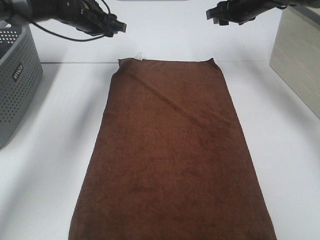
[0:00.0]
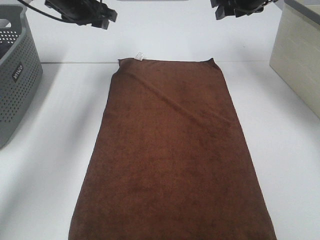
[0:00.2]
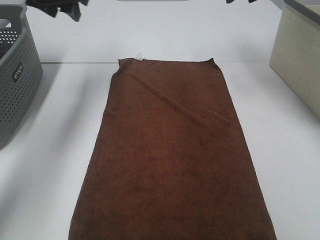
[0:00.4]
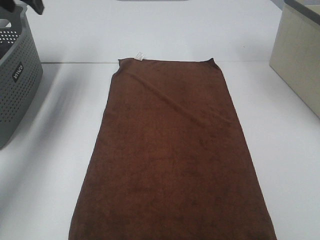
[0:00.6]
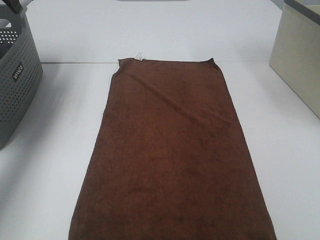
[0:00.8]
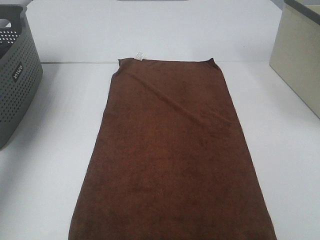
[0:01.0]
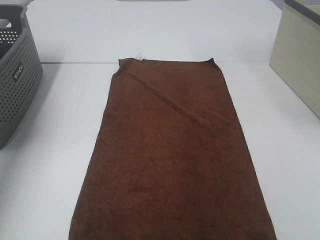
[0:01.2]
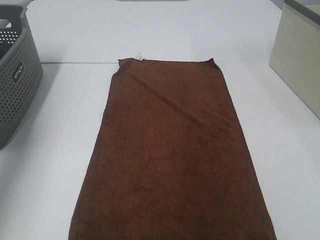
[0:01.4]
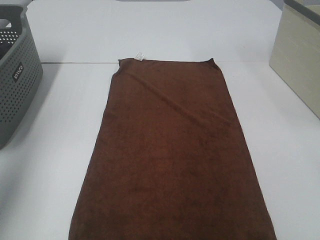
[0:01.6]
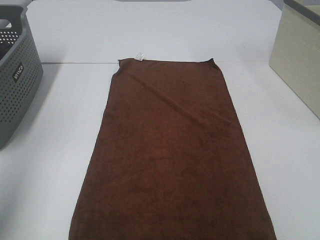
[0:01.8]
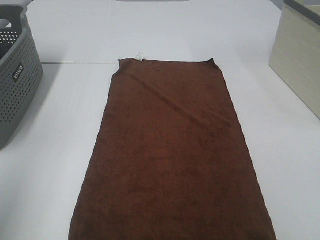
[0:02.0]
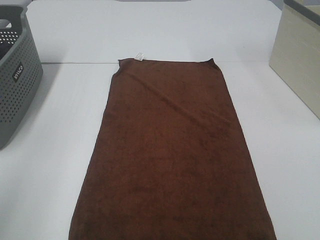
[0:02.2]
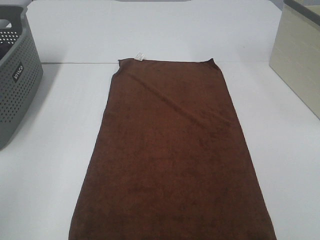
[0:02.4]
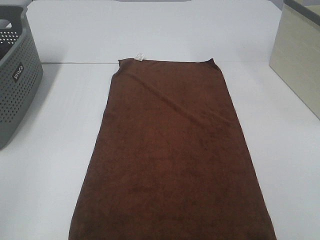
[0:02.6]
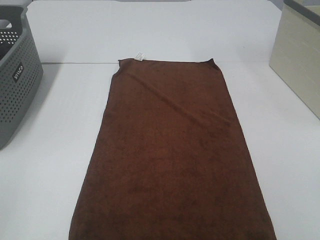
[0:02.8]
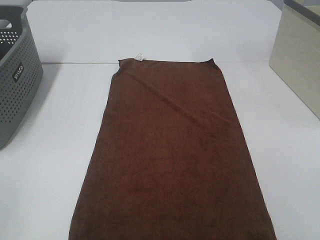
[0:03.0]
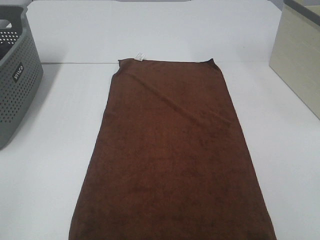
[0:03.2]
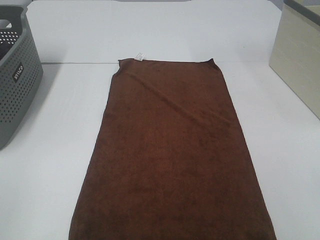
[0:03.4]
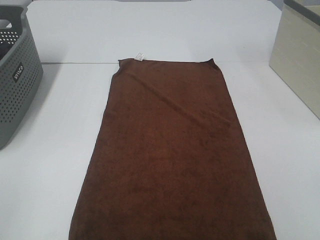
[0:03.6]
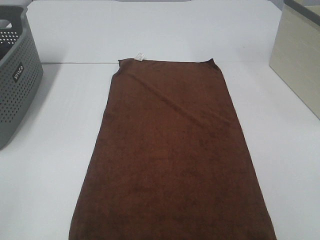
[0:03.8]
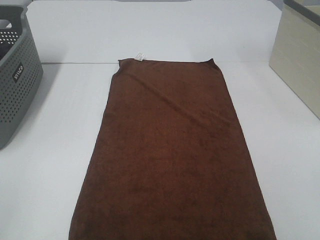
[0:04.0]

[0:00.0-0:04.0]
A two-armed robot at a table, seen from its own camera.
Task of the whole recording: Remove the towel and place it.
0.0 to 1.4 s: The left gripper shifts some 40 cm backward, upward and to the left. The right gripper moves backward and upward, roughly 35 cm.
1.4 to 2.6 s: The left gripper moves backward, about 20 cm.

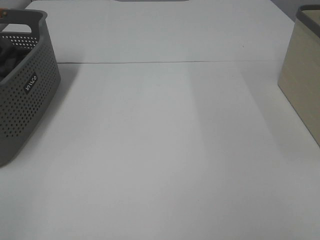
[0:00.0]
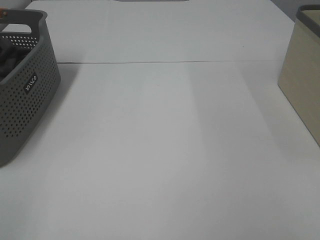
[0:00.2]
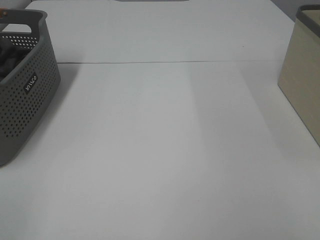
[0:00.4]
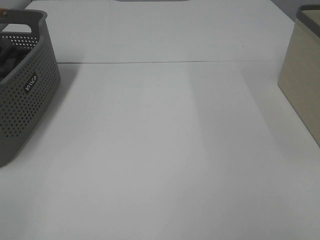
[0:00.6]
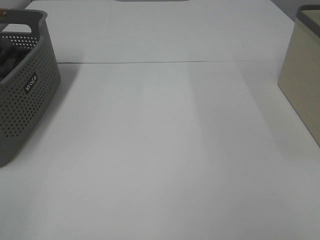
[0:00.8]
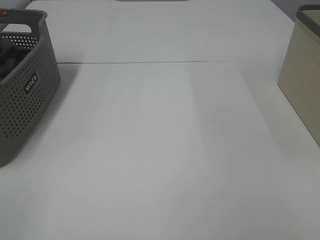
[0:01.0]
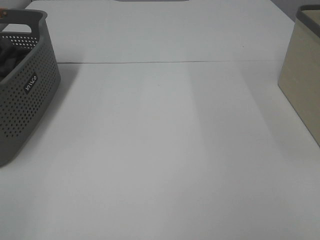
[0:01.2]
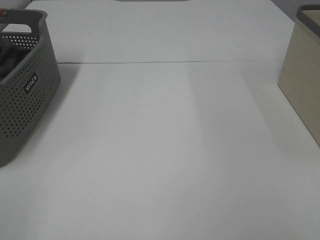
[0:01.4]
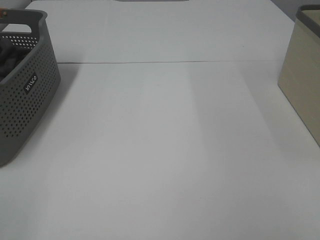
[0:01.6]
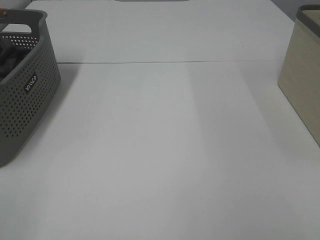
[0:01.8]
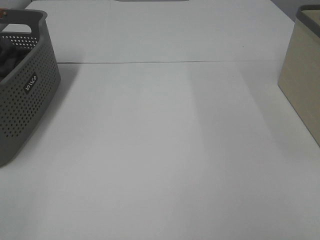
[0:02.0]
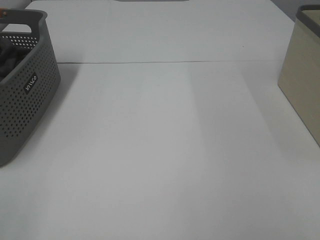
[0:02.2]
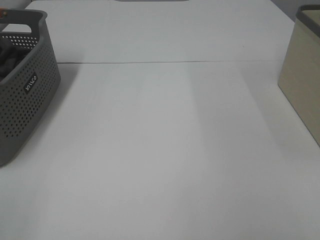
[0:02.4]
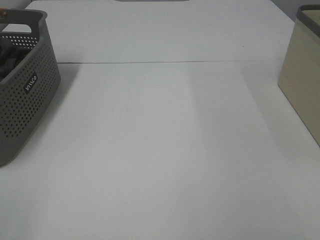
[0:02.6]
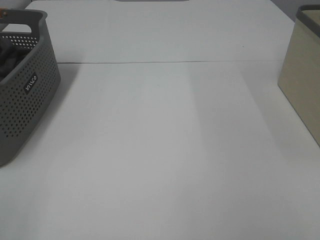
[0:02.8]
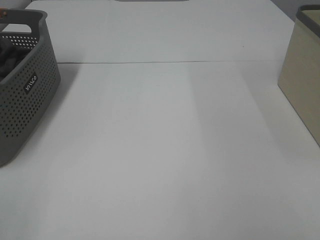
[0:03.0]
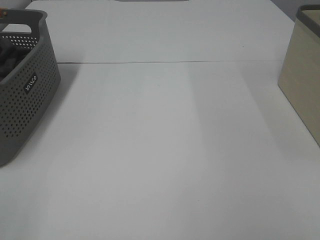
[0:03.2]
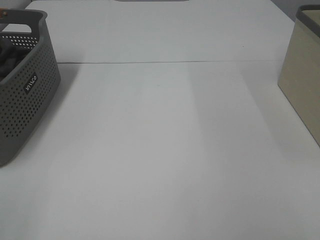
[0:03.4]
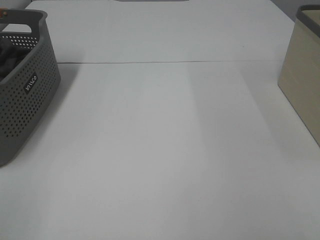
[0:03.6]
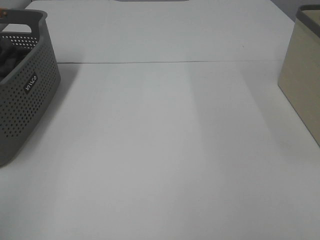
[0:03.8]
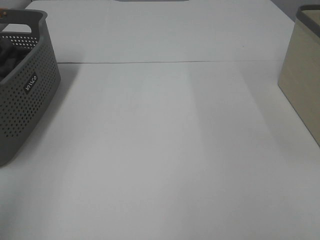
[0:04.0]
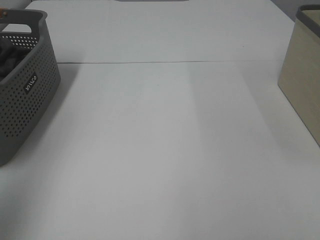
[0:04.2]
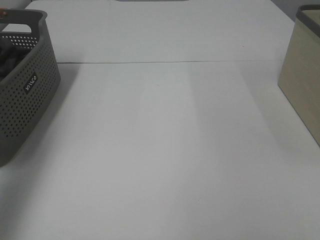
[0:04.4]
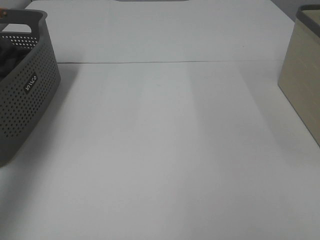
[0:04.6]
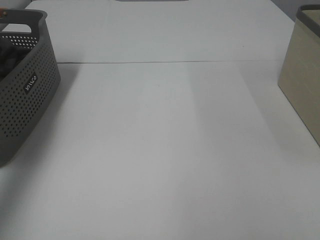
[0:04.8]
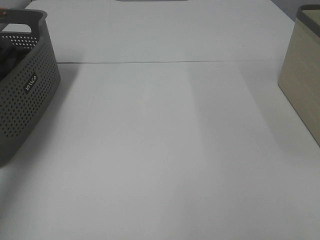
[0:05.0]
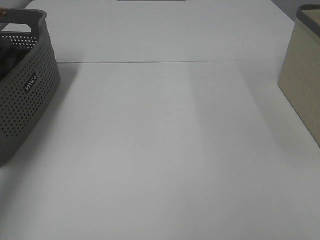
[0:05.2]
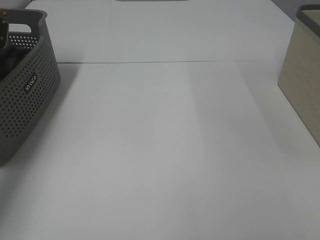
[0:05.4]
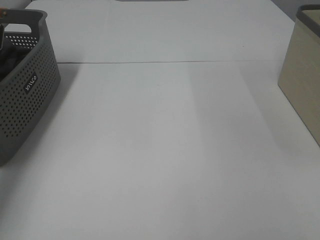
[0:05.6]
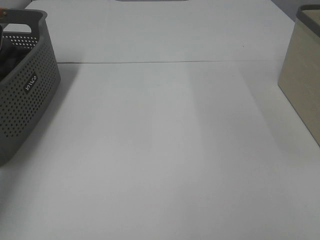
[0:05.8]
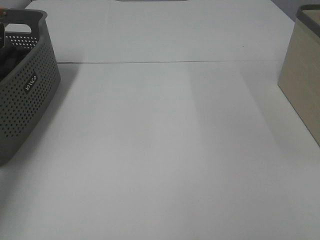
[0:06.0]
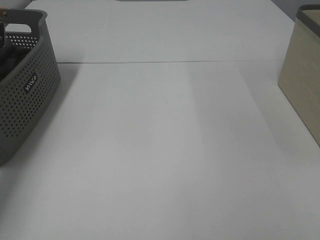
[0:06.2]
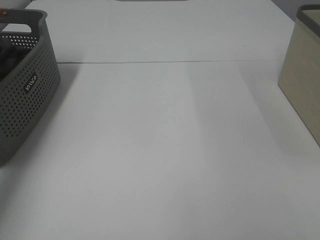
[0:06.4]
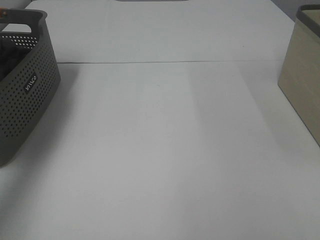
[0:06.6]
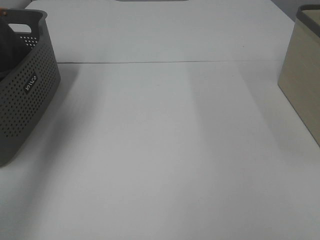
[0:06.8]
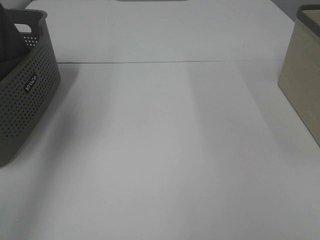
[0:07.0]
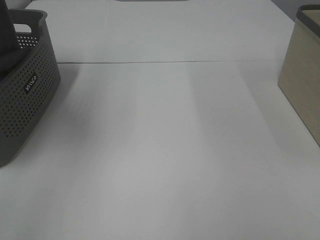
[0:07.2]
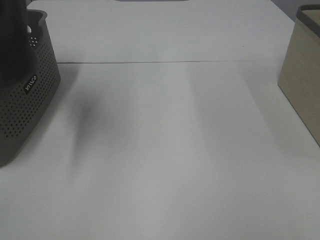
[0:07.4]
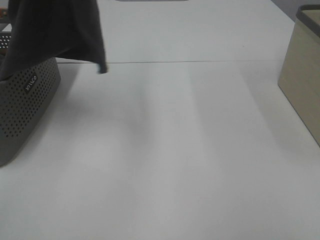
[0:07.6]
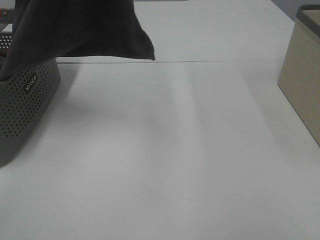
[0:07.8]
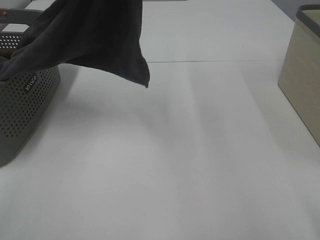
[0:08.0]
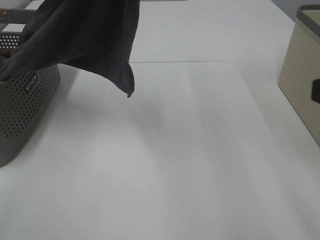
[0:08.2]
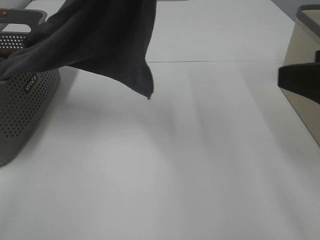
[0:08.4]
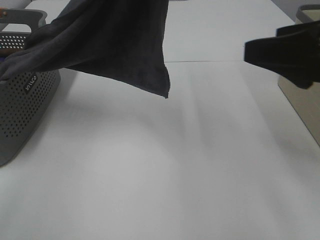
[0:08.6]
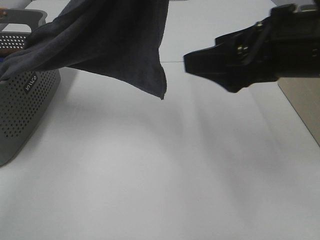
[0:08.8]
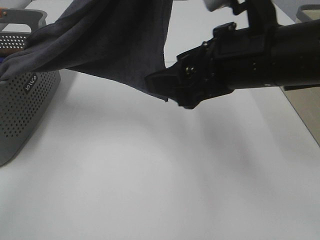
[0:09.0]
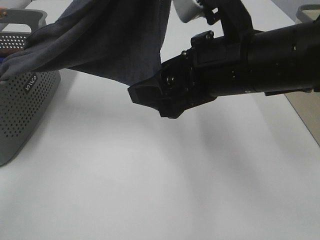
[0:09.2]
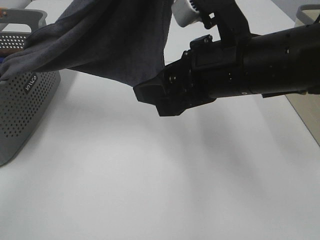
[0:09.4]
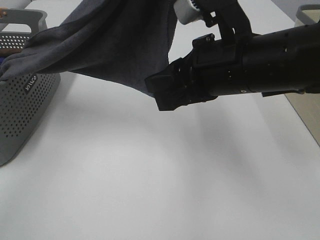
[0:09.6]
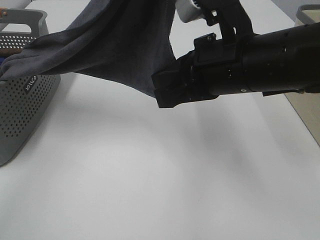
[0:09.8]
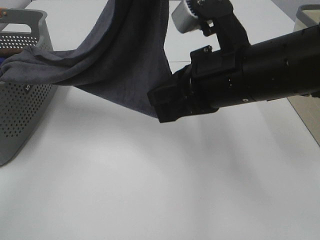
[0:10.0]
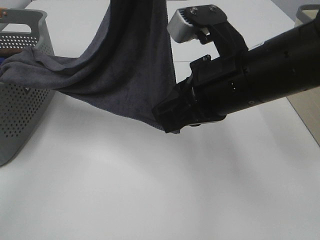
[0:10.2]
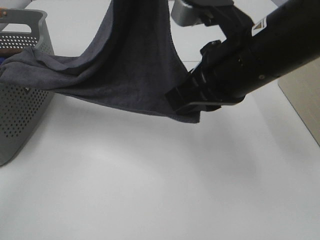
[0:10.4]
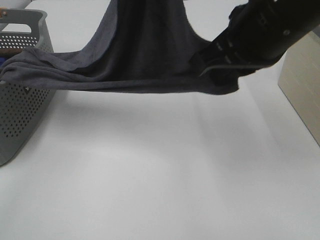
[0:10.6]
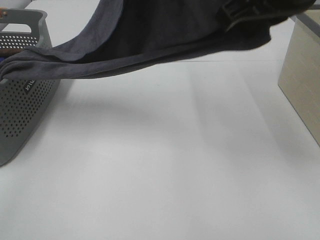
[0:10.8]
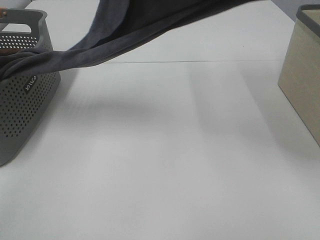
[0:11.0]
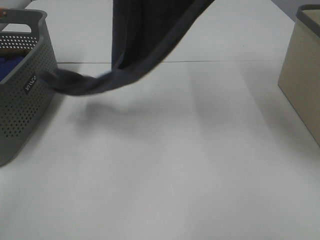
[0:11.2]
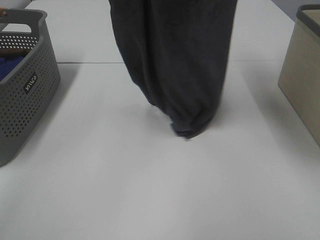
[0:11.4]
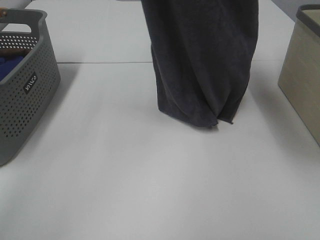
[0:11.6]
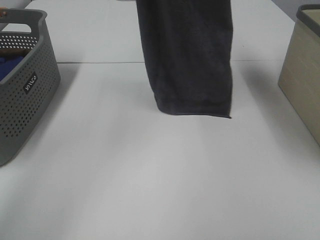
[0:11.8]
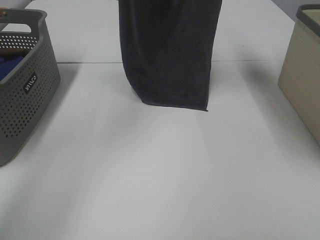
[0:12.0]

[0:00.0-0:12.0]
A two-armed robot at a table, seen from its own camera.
Task of the whole recording: Remove the towel and place it.
Step, 7.2 to 11.2 s: Right hand: grab a corner of the grey towel and straighten it.
0.0 to 1.6 s: The two grippers keep their place.
3.0 to 4.4 s: The left gripper heads forward and upward, covering roughly 25 cm.
4.4 to 6.0 s: The left gripper moves downward and forward, some 30 cm, and closes its fingers.
6.0 to 7.6 s: The left gripper travels upward, to the right and backward by roughly 40 cm.
7.6 to 9.0 s: The left gripper travels to the right by about 10 cm; the right gripper travels forward and to the left by approximately 25 cm.
9.0 to 10.4 s: The right gripper closes its fingers.
10.4 to 12.0 s: The right gripper heads upward and forward, covering approximately 25 cm; the left gripper goes about 20 cm forward.

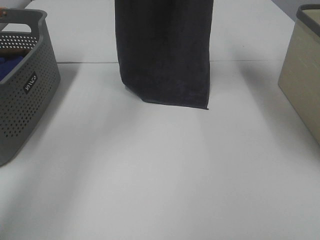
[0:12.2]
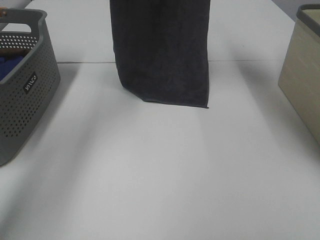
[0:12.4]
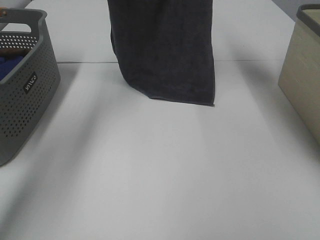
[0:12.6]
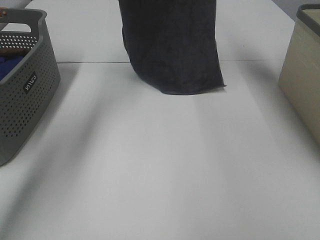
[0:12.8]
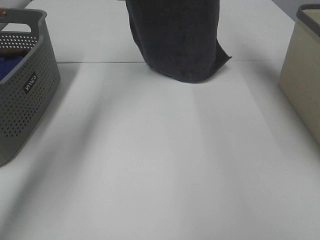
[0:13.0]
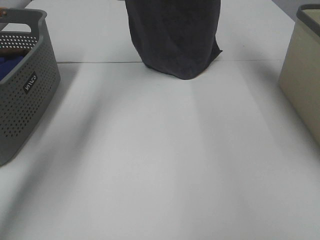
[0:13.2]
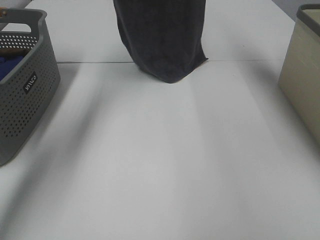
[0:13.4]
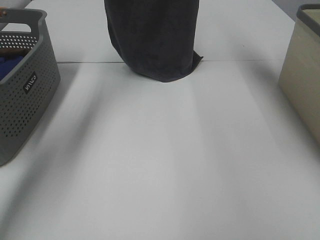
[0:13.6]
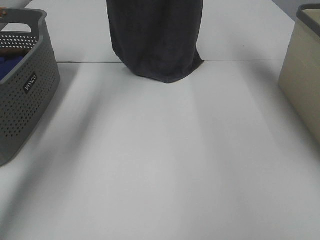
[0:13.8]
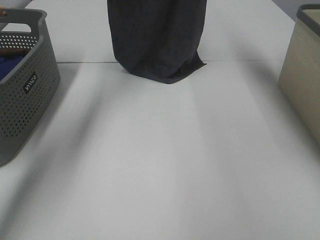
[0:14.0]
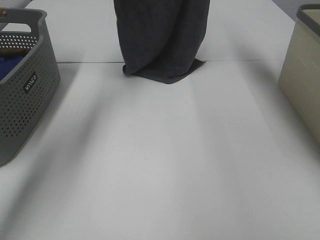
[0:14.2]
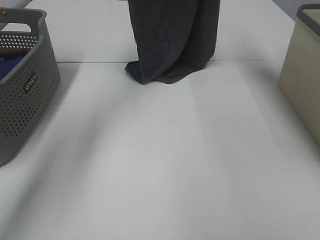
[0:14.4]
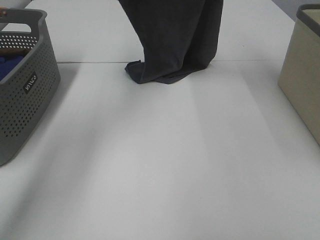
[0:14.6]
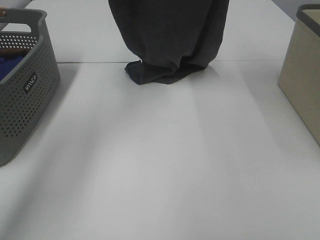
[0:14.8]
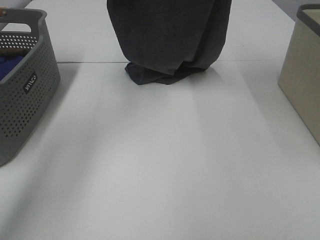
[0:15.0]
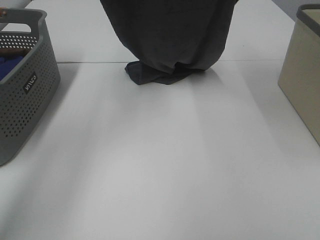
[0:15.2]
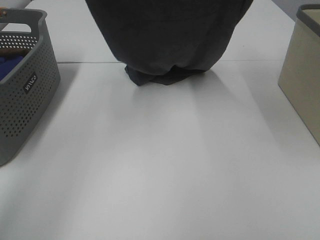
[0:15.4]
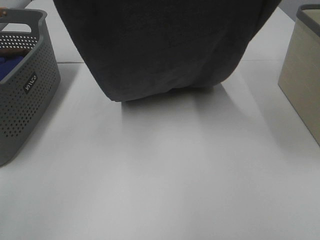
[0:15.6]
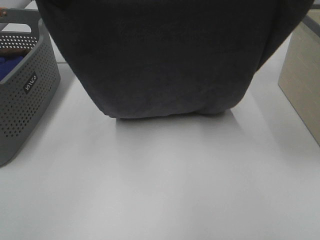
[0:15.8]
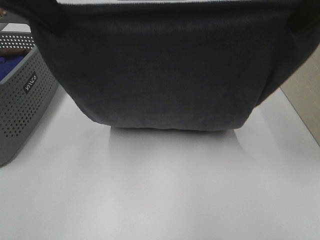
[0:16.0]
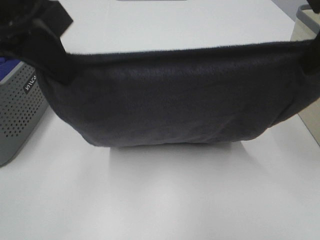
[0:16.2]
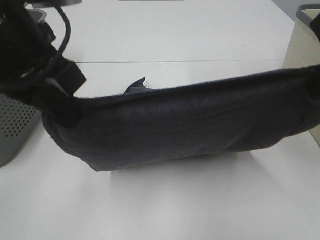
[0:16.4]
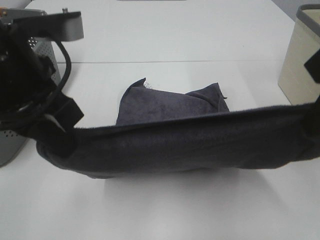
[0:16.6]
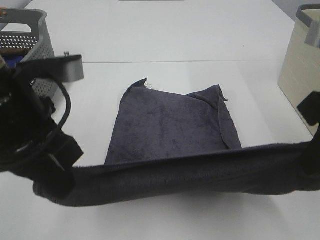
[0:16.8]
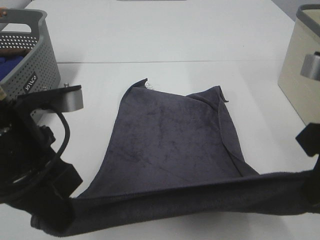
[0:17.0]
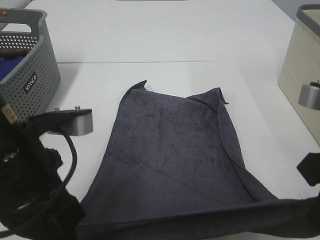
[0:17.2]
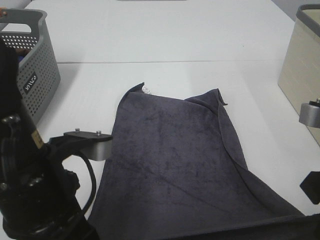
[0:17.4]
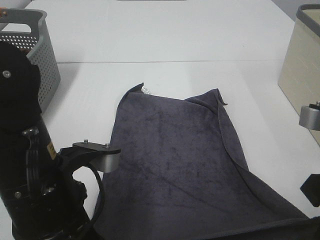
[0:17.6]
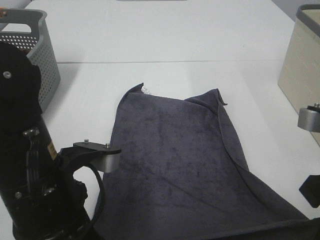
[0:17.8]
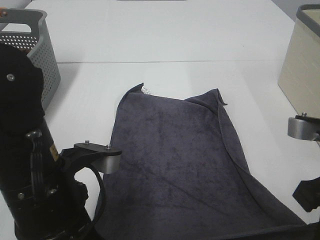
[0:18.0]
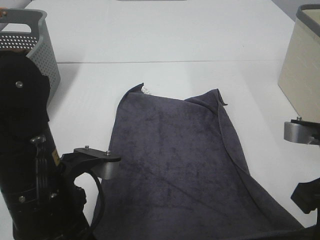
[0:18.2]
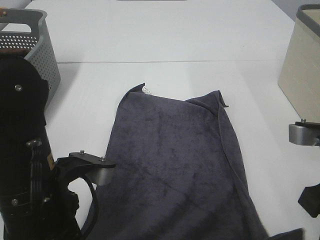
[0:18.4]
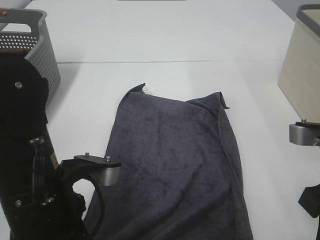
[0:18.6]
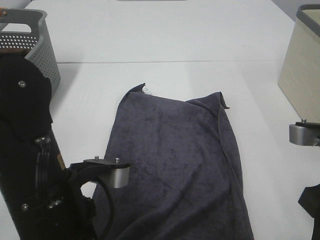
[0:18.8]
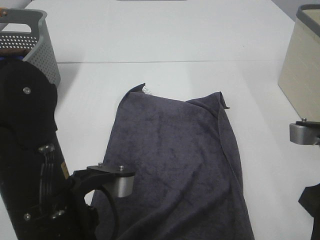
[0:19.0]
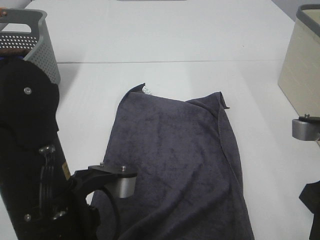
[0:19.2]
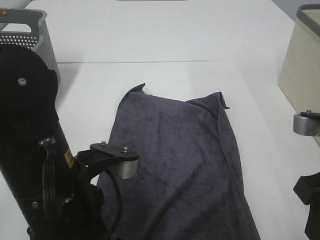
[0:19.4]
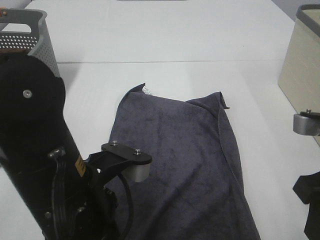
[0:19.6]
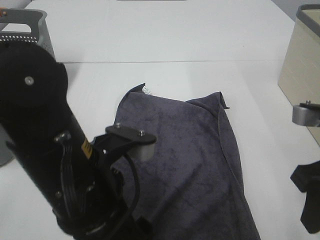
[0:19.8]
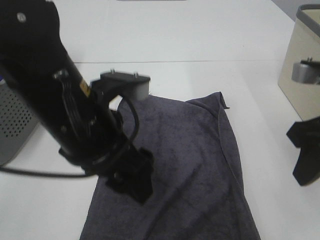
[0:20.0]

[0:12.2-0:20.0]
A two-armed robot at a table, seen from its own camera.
Task of the whole recording: Remove the towel and place it.
Step, 12.2 to 15.8 s: Left hand: spread the grey towel flat on the table.
Step, 12.2 to 15.8 s: Right hand: spread the grey towel flat on the table.
12.2 to 13.8 s: The grippers both shift forward by roughly 10 cm.
13.8 to 15.4 s: The grippers both shift backward by approximately 15 cm.
15.4 to 16.8 s: Both grippers travel together backward and downward, some 25 cm.
16.8 to 18.4 s: Both grippers move downward, roughly 10 cm.
18.4 to 20.0 s: The left gripper is displaced upward and forward by approximately 10 cm, and opens; the right gripper shifts by some 5 cm, and opens its fingers.
